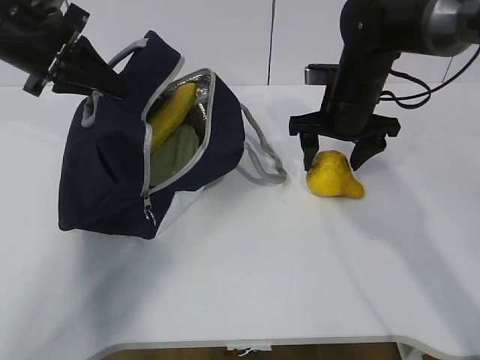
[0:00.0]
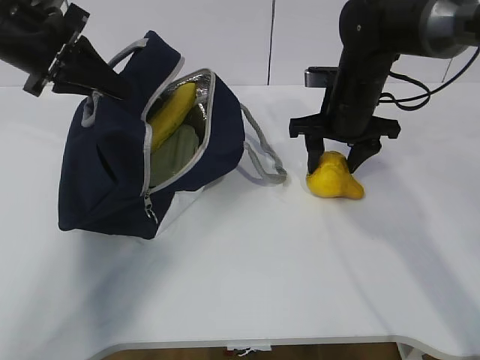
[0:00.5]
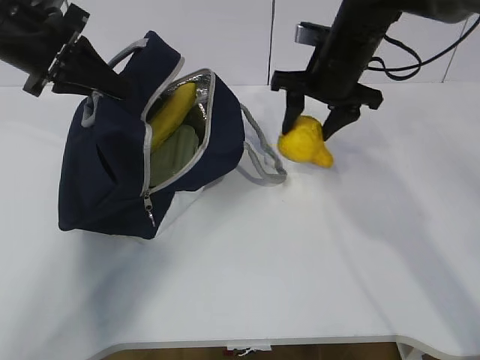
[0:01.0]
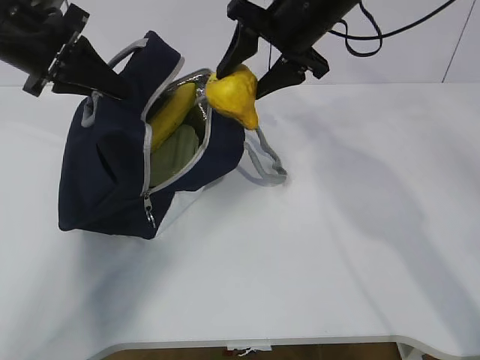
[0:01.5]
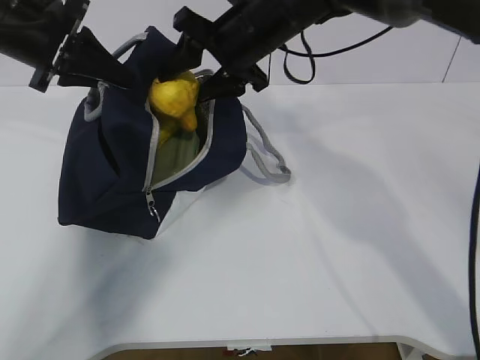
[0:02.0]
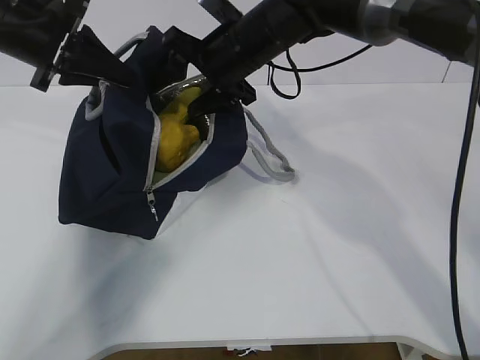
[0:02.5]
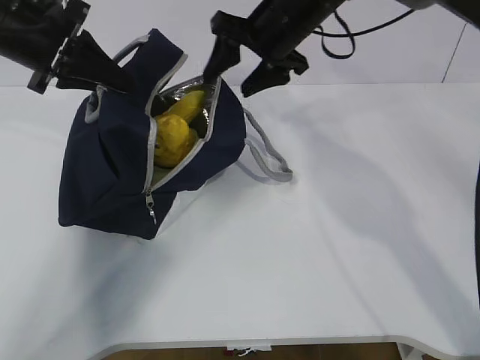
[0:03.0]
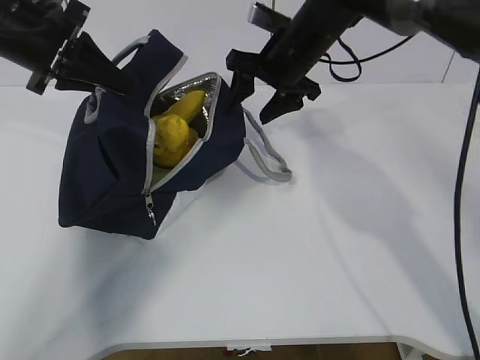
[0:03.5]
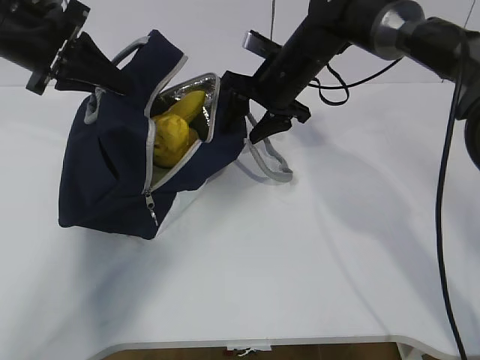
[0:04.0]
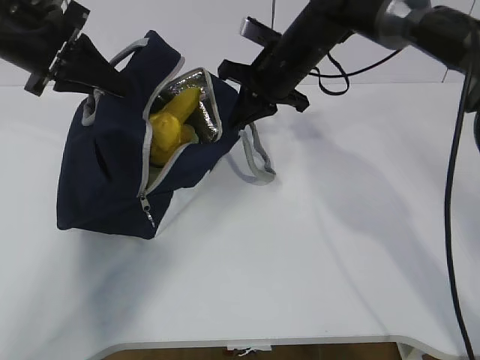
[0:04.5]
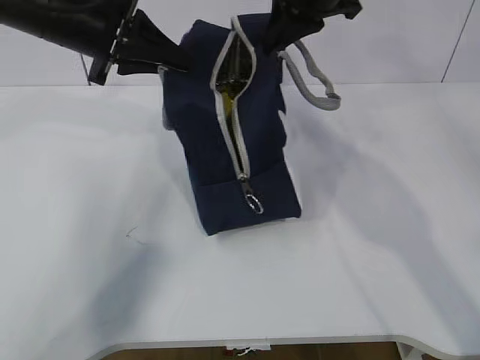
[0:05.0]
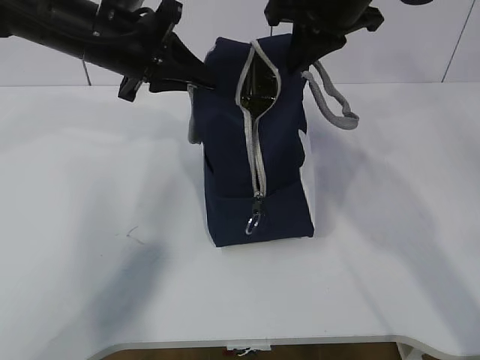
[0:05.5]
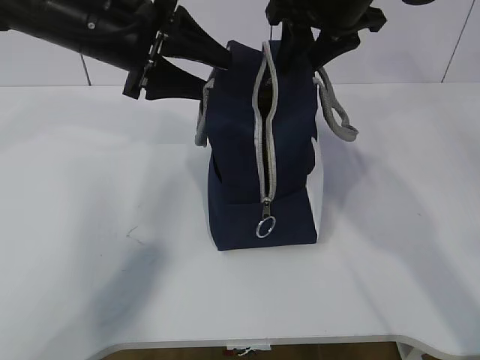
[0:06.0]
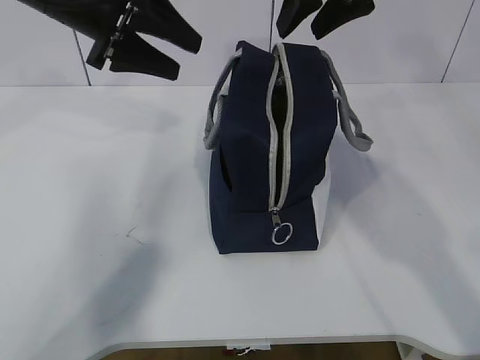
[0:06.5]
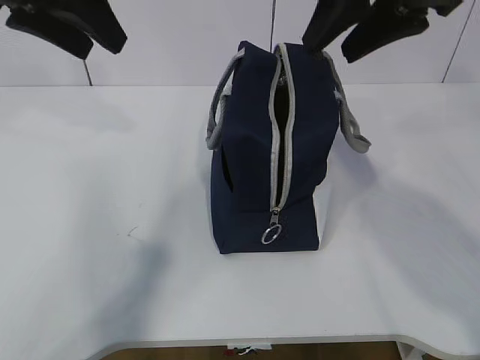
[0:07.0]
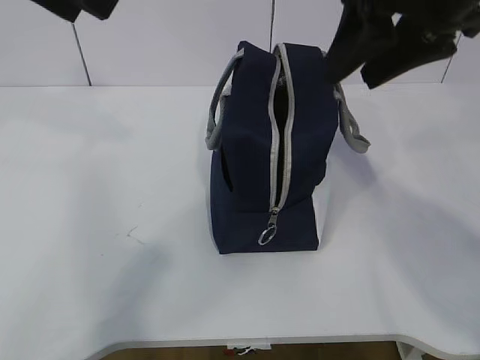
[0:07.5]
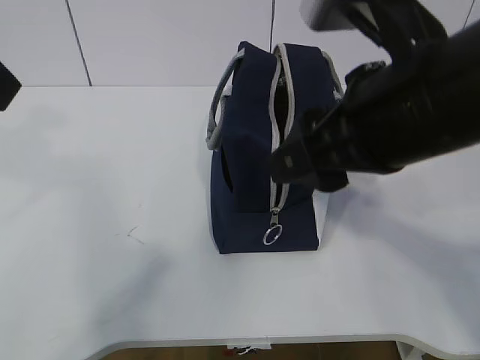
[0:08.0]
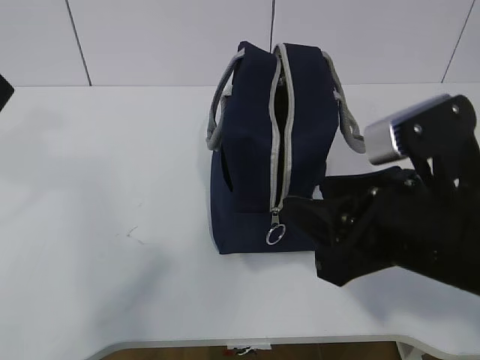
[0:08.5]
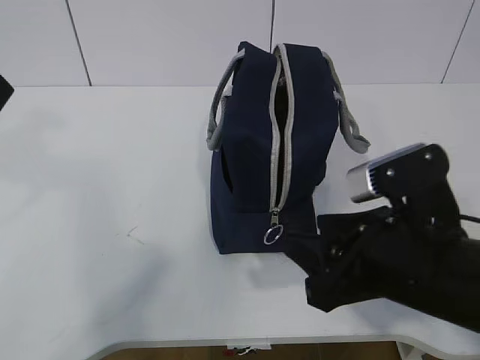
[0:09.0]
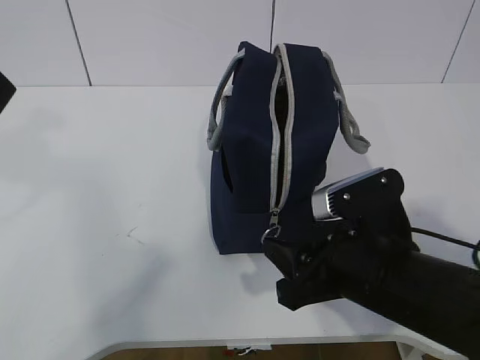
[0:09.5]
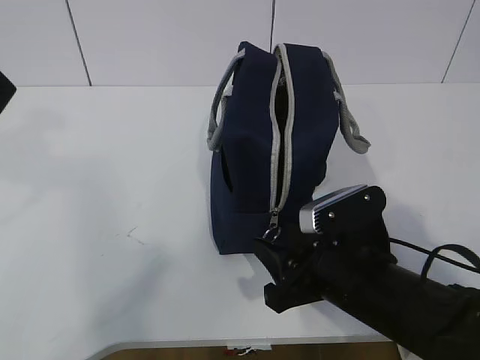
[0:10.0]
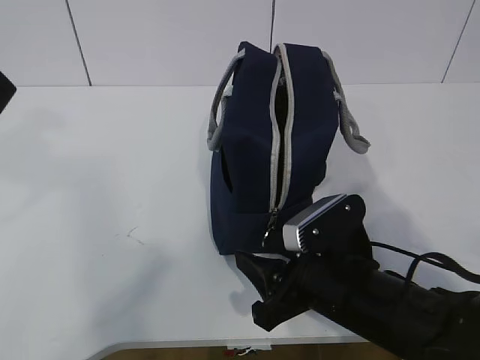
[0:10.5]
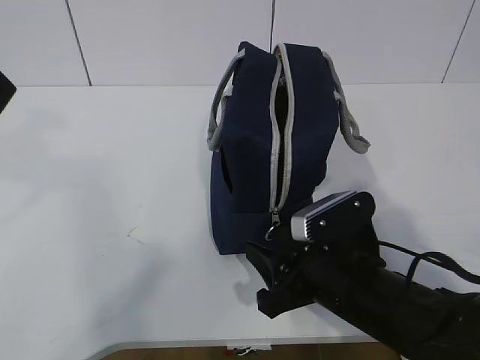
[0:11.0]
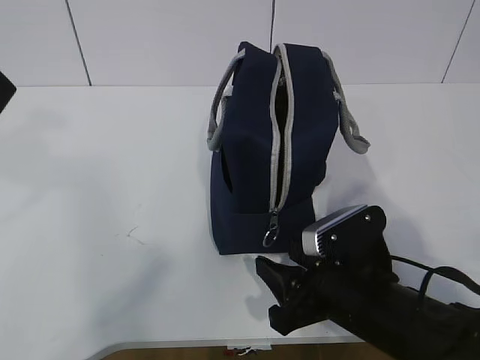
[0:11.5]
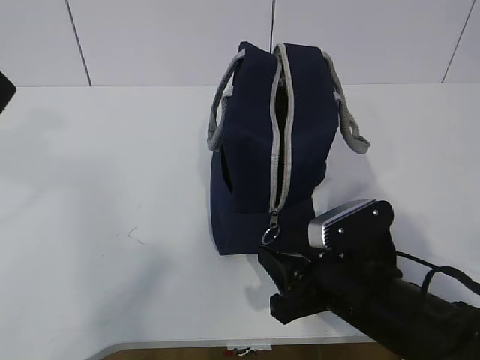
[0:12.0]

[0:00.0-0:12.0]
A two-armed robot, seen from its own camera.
0.0 to 2.0 s: The right gripper goes about 15 cm to the left and upward.
2.0 to 4.0 s: The right gripper goes about 5 cm downward.
4.0 to 6.0 s: The right gripper heads upward and backward, covering roughly 15 cm, and closes, then reopens. The left gripper moves to the right, roughly 10 cm, and opens its fingers.
6.0 to 8.0 s: The left gripper goes some 25 cm backward and upward. Meanwhile the right gripper travels backward by about 20 cm.
8.0 to 10.0 s: The right gripper travels downward by about 20 cm.
10.0 to 12.0 s: The grippers move only a little.

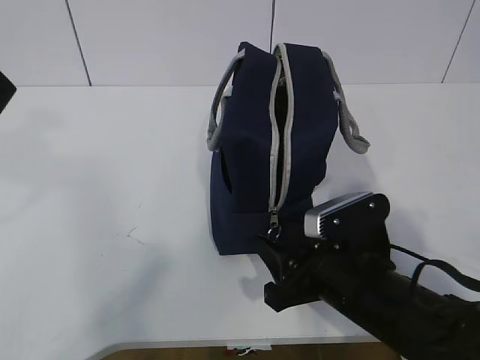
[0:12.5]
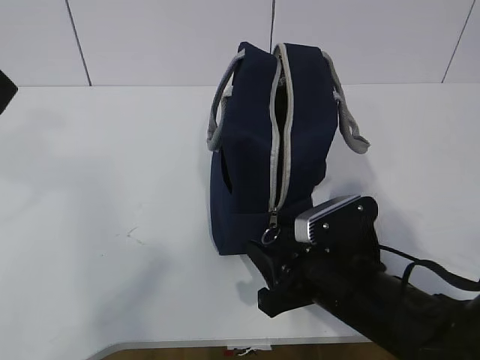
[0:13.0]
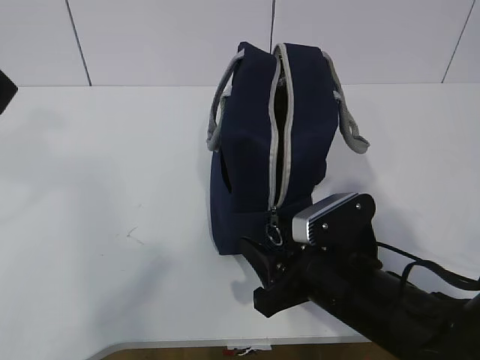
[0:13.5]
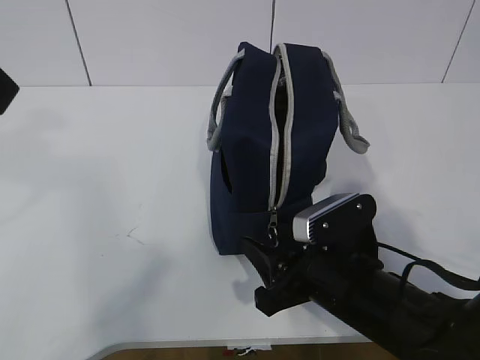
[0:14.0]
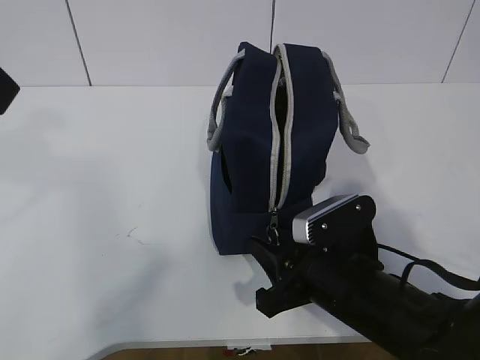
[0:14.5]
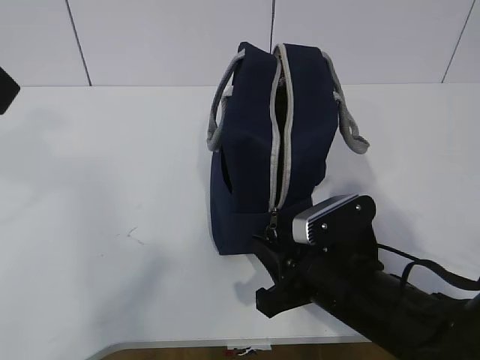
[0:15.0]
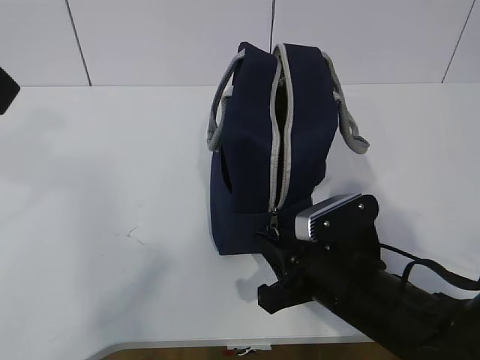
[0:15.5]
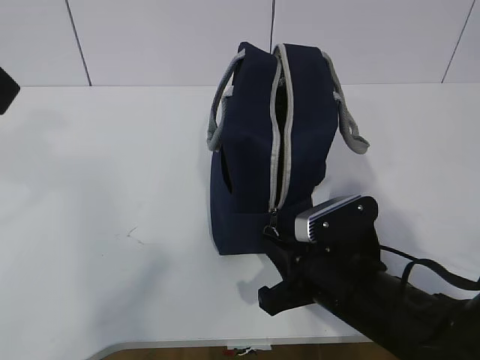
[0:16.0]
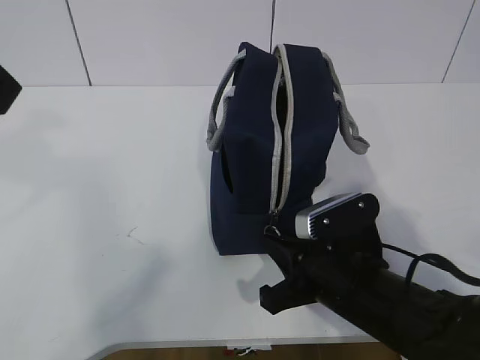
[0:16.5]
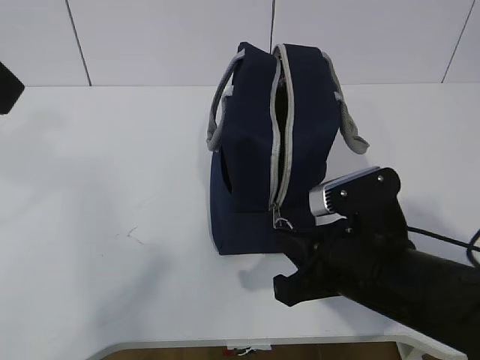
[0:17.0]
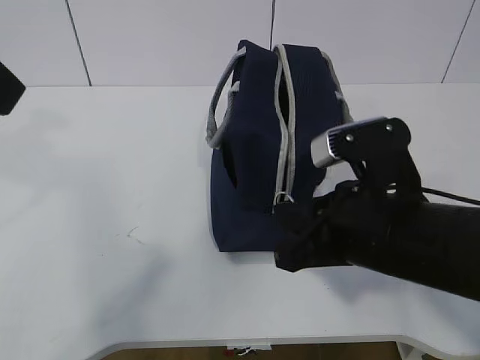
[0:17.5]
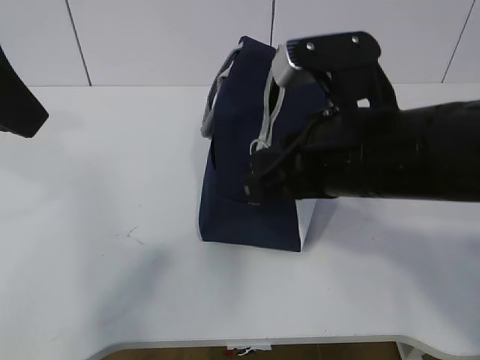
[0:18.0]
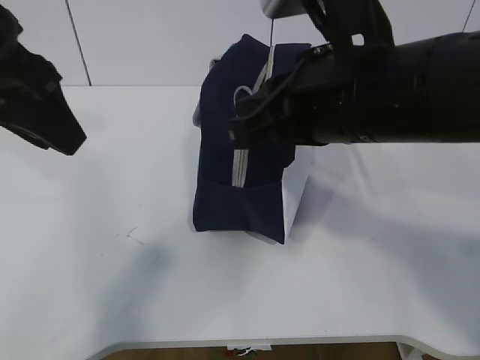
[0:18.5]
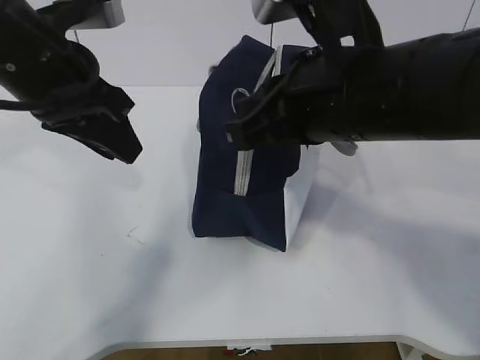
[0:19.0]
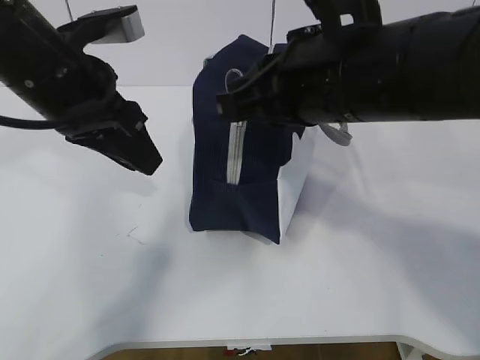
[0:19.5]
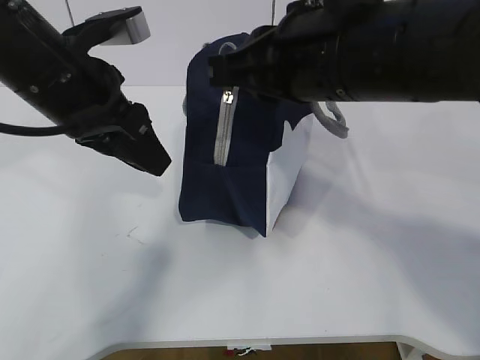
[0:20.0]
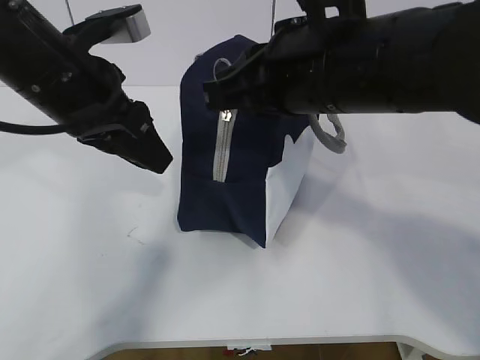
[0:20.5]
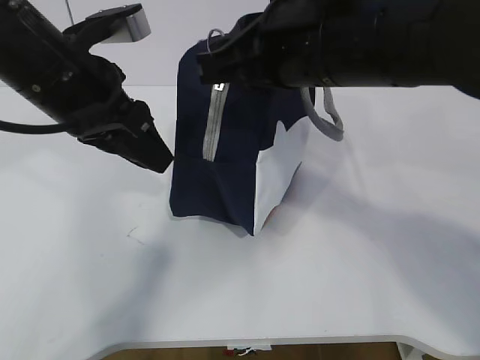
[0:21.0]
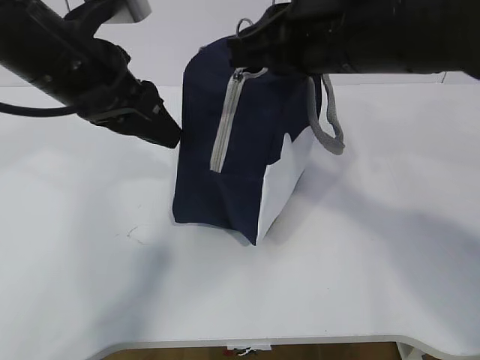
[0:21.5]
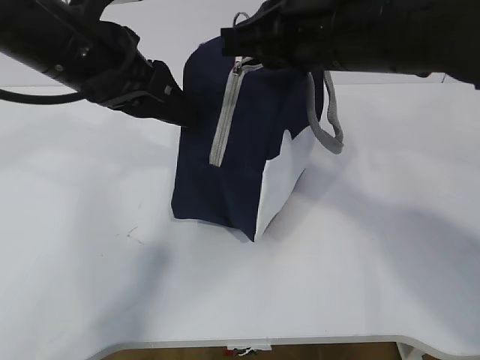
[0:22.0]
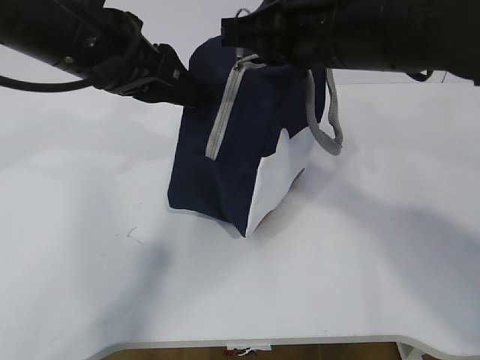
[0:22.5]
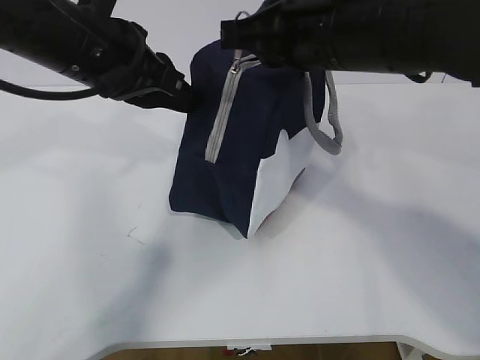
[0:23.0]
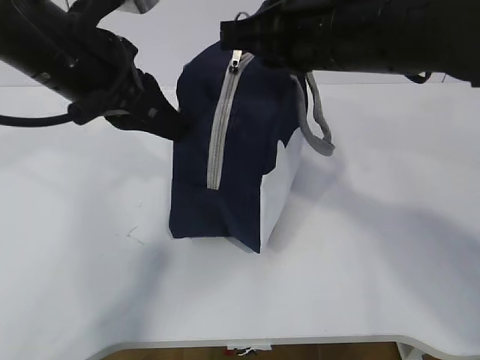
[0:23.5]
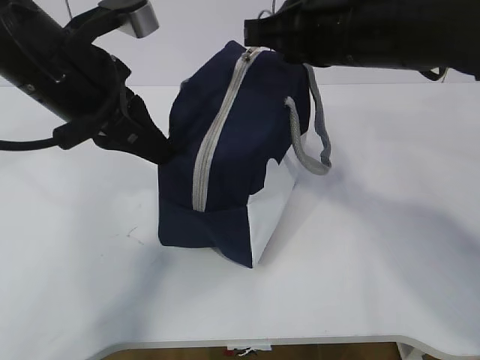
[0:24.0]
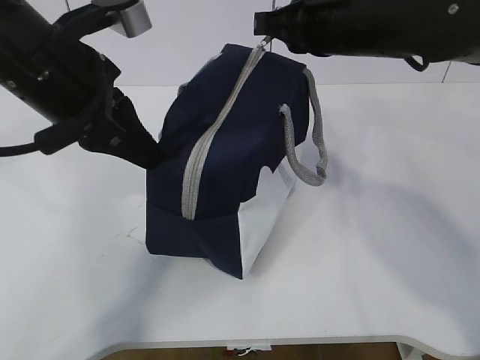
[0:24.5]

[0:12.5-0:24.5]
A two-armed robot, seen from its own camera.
Step, 16.5 to 20.0 s: Pull the zipper with your right hand.
12.5 to 14.5 s: The grippers move only a little.
14.5 to 16.5 s: The right gripper closes up.
16.5 to 18.5 s: The left gripper is displaced forward and downward by roughly 10 cm. The right gripper shifts some 20 cm upward.
18.5 to 20.5 s: The left gripper shifts about 5 cm downward.
22.5 to 24.5 s: The left gripper closes up. Meanwhile the right gripper heads forward, covering about 5 cm.

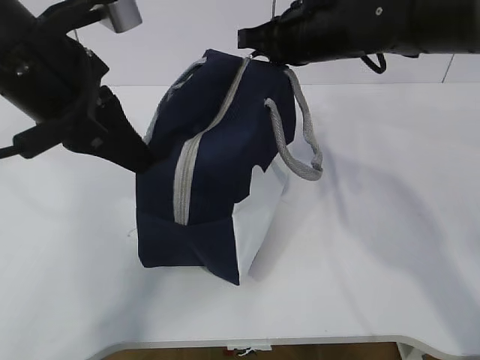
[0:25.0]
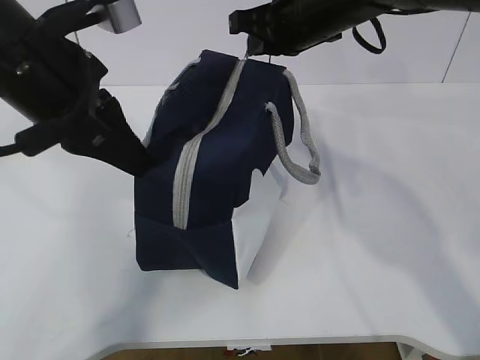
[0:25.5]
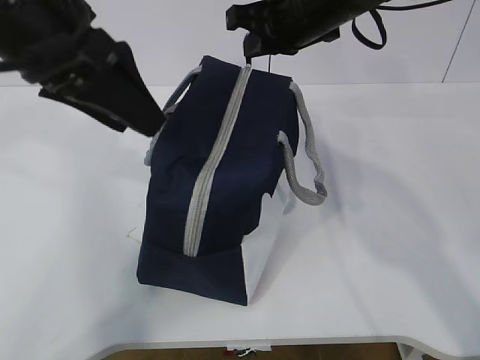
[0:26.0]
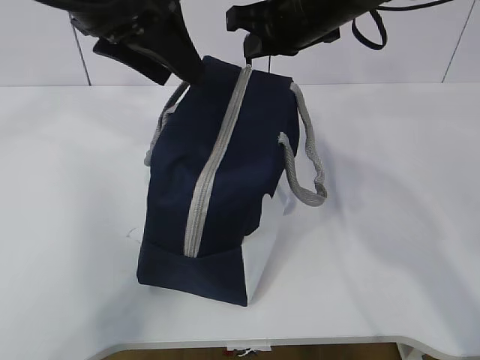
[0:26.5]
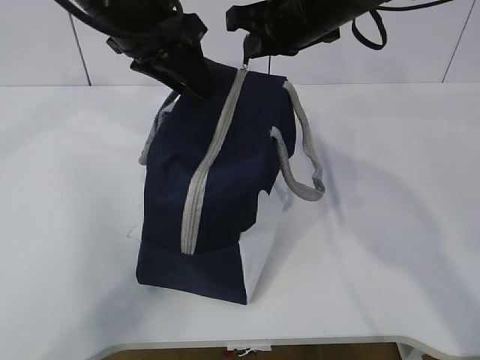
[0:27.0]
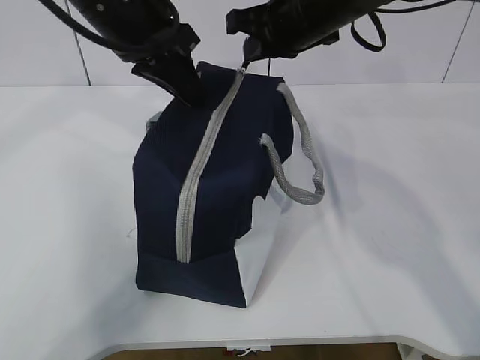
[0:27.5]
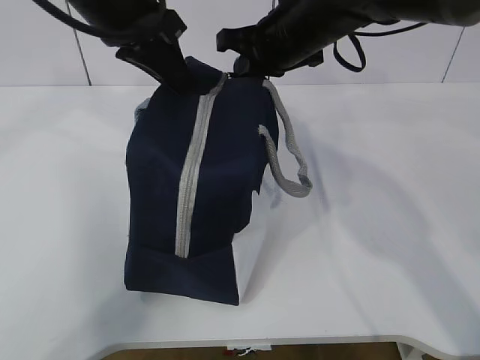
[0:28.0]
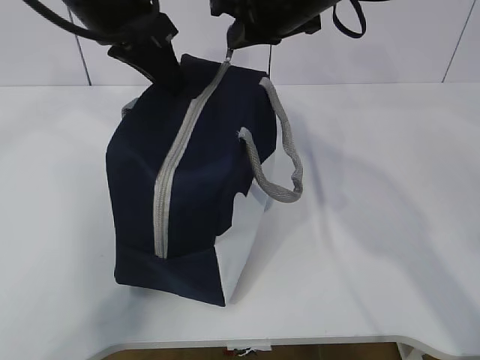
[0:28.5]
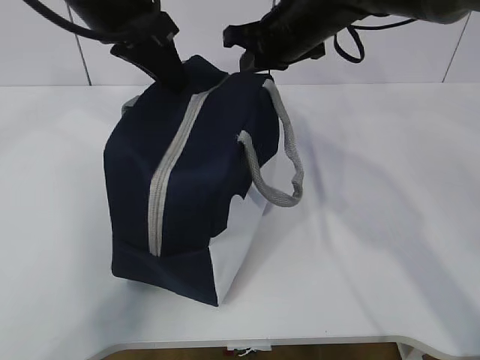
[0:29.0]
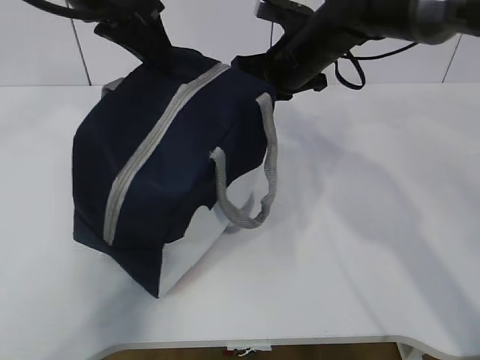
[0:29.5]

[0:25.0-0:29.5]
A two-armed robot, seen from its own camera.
25.0 to 27.0 s: The left gripper goes roughly 10 cm forward, and opens up.
27.0 to 29.5 s: The left gripper ends up roughly 5 cm from where it was, and closes, while the right gripper travels downward and forward by roughly 10 cm.
